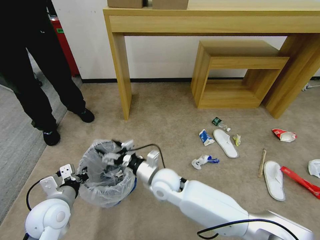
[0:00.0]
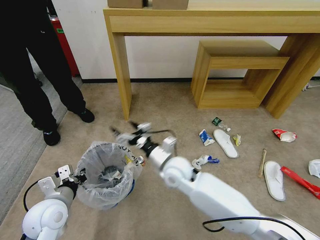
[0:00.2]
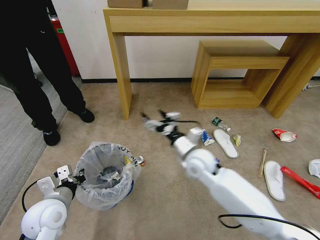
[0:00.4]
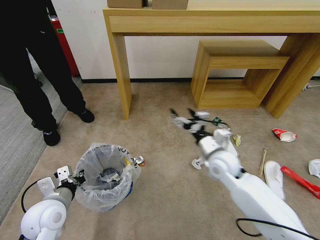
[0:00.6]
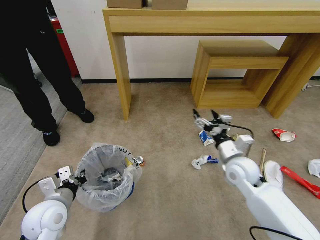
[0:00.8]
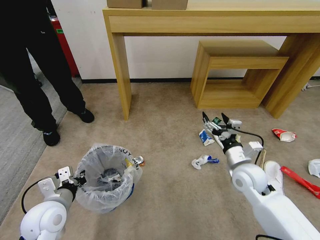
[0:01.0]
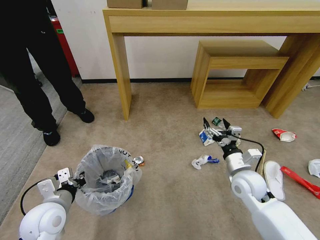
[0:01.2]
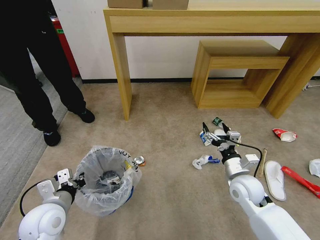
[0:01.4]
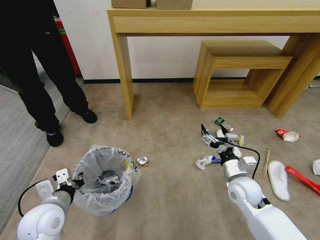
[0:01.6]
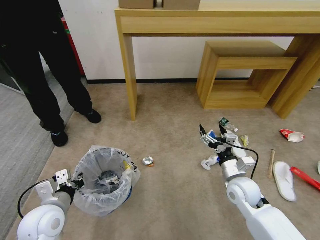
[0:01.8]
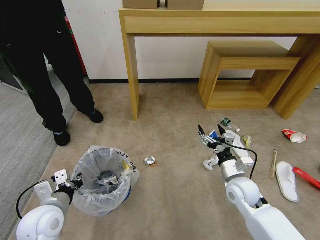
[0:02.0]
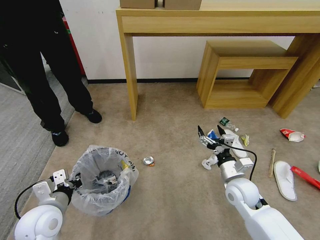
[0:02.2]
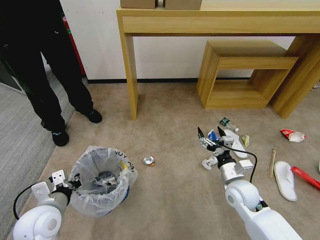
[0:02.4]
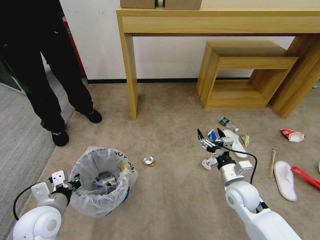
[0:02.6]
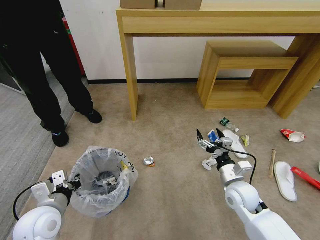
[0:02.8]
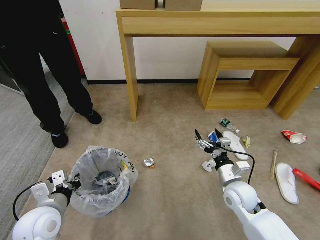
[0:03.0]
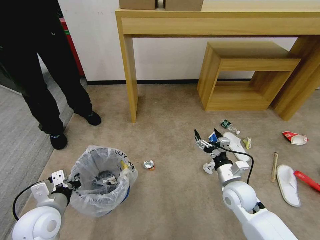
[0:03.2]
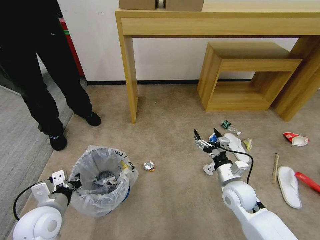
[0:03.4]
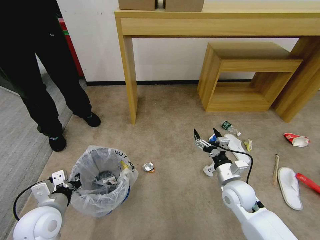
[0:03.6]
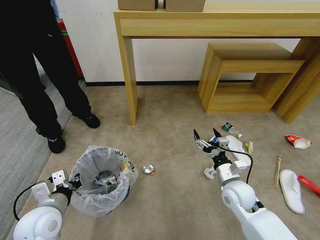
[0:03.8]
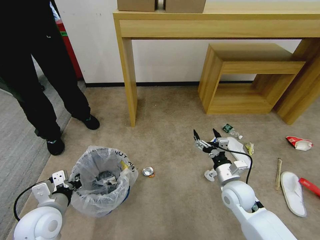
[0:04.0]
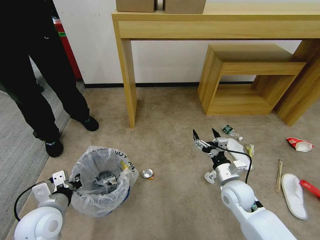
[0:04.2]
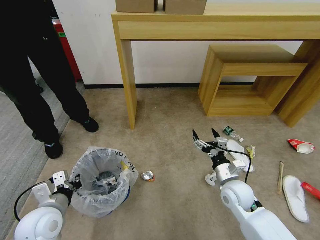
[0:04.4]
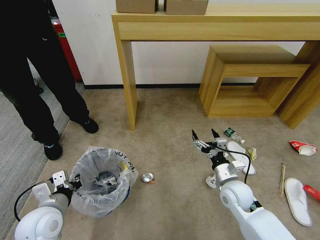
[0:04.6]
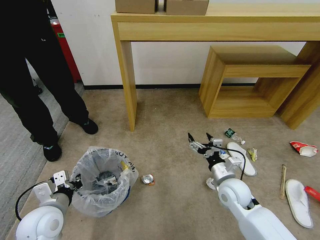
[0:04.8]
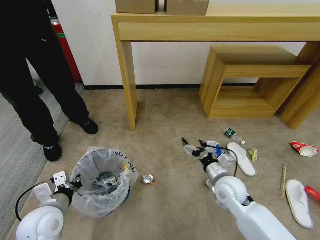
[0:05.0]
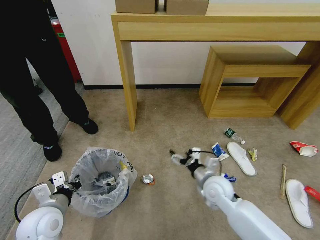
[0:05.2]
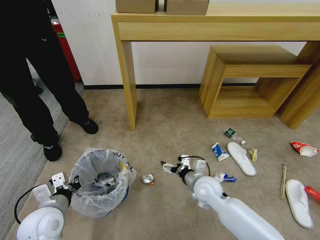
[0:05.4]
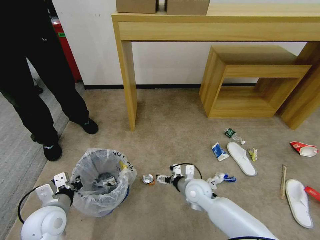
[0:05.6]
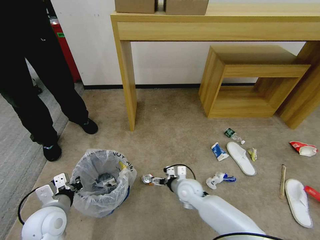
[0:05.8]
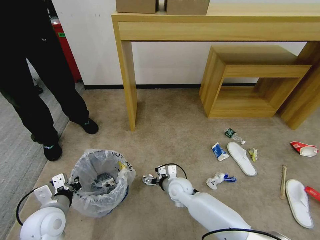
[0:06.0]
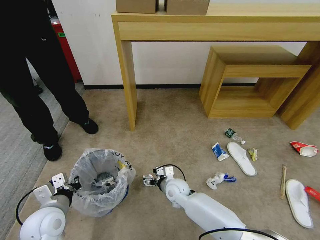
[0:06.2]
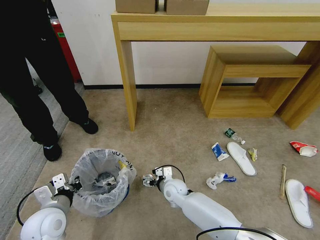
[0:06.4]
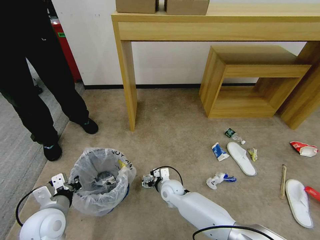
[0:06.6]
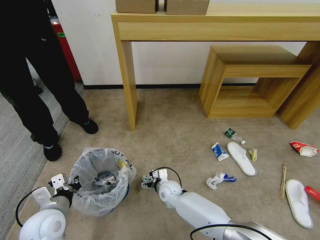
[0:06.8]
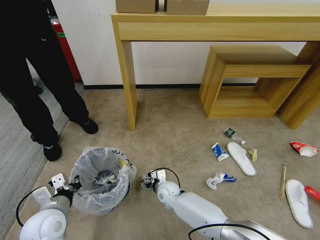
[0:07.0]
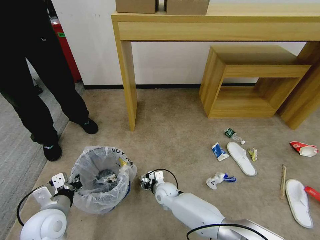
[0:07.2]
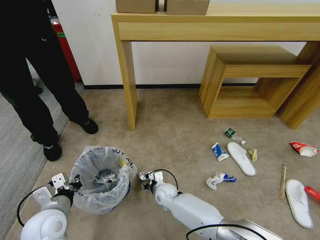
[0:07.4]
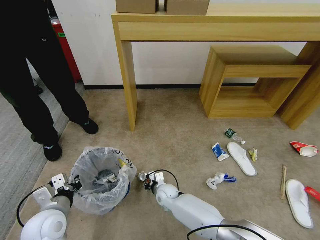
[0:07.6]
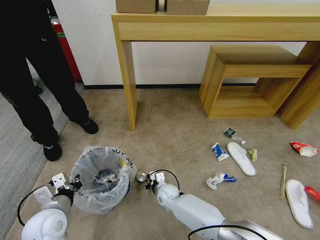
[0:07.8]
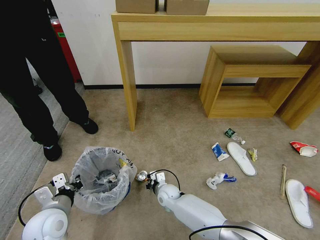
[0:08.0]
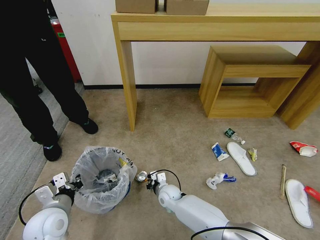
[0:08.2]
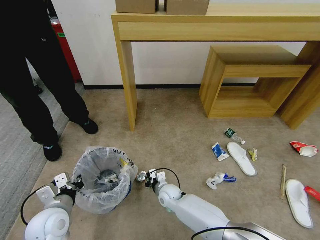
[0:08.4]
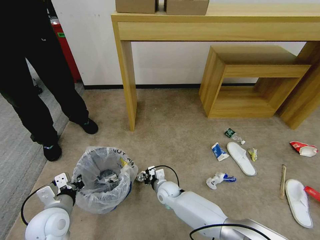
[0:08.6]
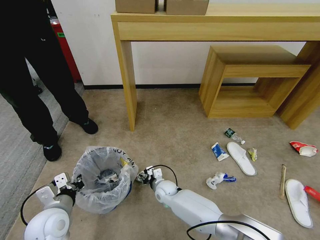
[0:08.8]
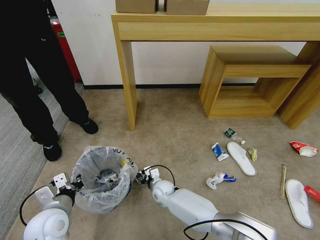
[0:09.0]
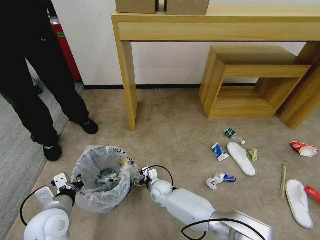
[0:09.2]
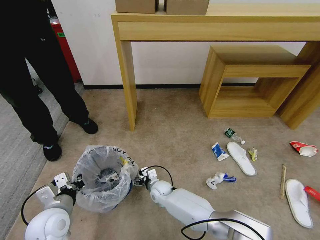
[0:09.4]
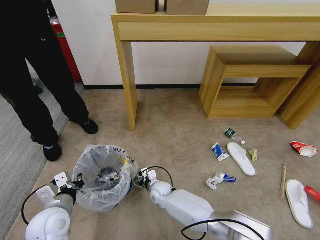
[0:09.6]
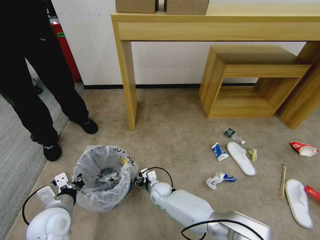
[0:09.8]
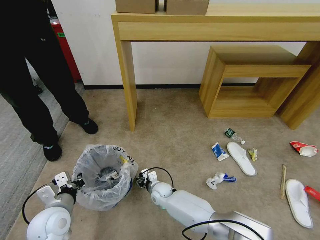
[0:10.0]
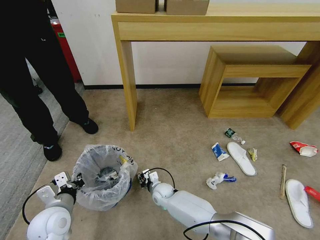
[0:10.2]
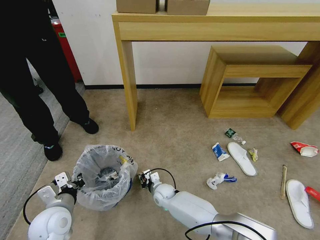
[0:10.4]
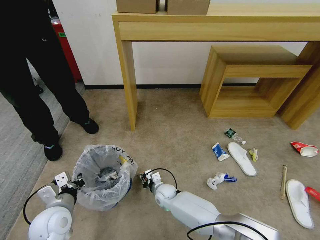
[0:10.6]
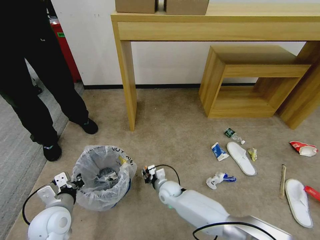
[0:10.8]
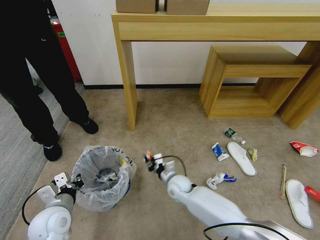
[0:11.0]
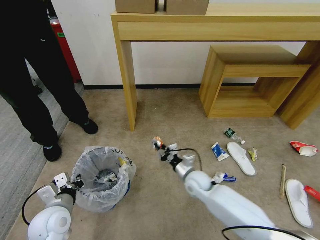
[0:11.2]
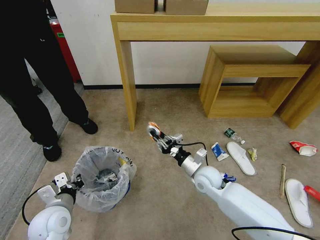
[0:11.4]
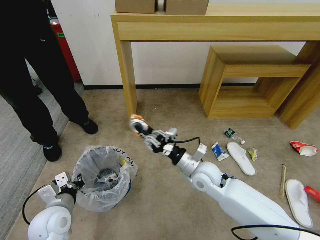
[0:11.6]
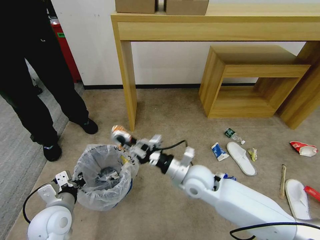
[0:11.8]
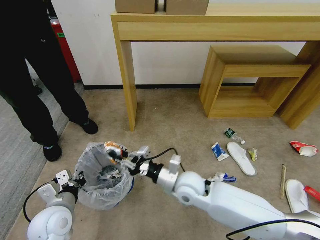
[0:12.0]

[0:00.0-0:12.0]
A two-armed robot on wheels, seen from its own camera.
Task of the whole recording: Pick up the trash bin and place the garbage on the floor into it.
0:00.0 to 0:01.6: The right gripper goes roughly 25 cm to the right.
0:01.6 to 0:03.0: There are only small adjustments of the grippers.
0:04.4 to 0:06.0: The right gripper shifts some 20 cm to the left and downward.
0:06.0 to 0:07.6: The right gripper goes some 10 cm downward and to the left, and closes up.
0:07.6 to 0:09.0: The right gripper opens.
0:09.0 to 0:10.4: The right gripper closes up.
0:10.4 to 0:12.0: The right gripper travels upward by roughly 20 cm.

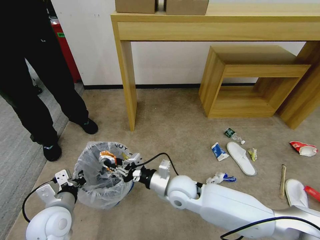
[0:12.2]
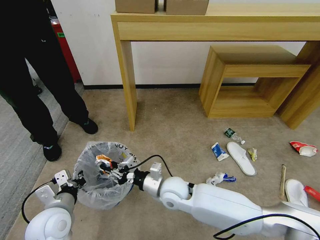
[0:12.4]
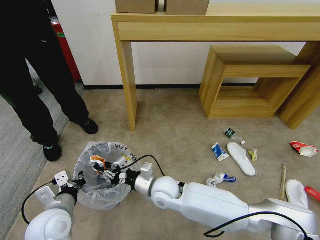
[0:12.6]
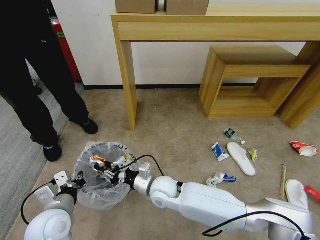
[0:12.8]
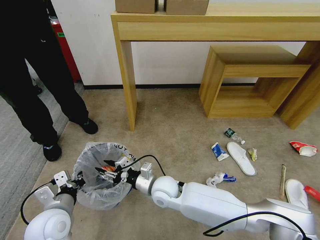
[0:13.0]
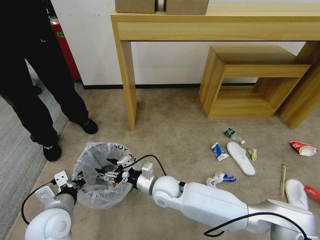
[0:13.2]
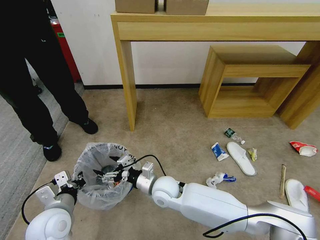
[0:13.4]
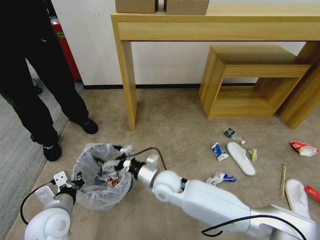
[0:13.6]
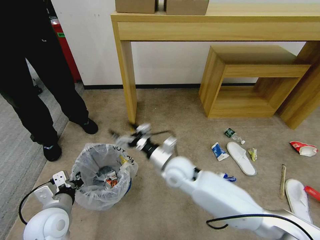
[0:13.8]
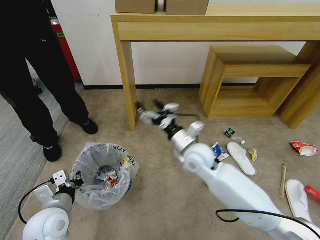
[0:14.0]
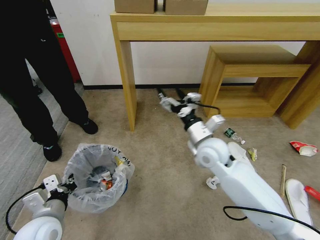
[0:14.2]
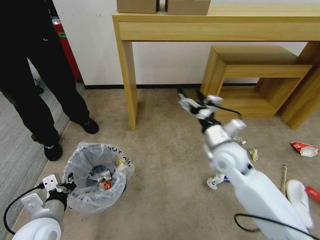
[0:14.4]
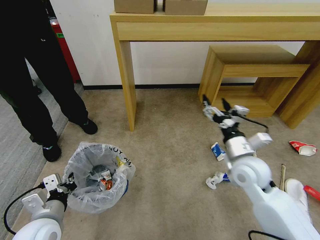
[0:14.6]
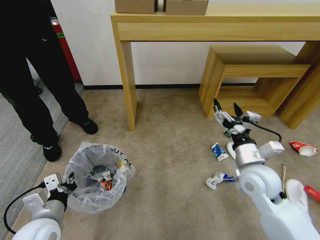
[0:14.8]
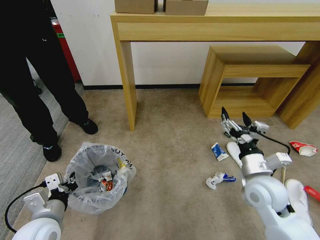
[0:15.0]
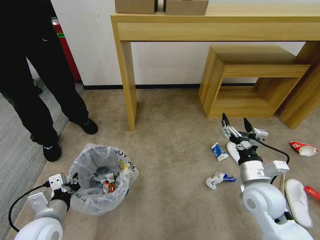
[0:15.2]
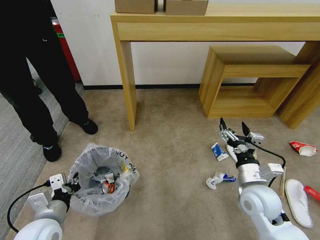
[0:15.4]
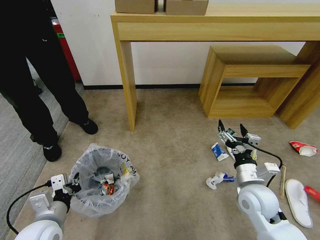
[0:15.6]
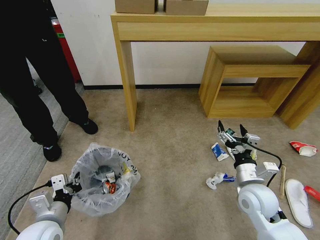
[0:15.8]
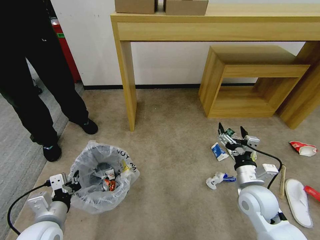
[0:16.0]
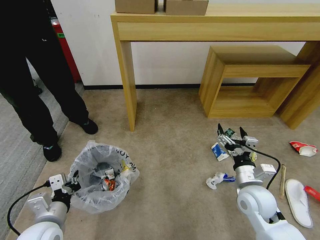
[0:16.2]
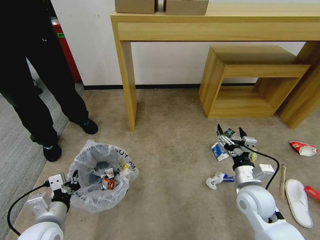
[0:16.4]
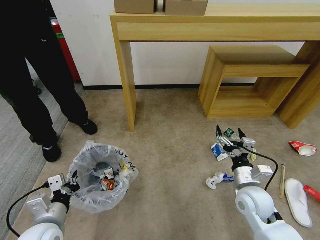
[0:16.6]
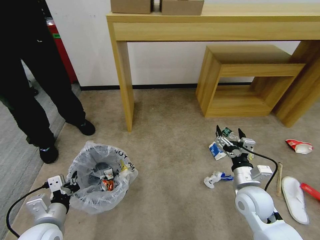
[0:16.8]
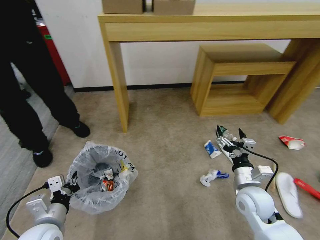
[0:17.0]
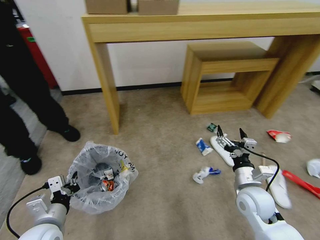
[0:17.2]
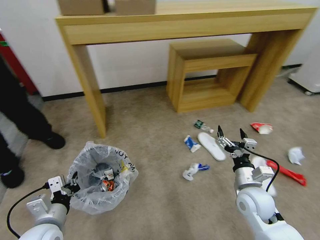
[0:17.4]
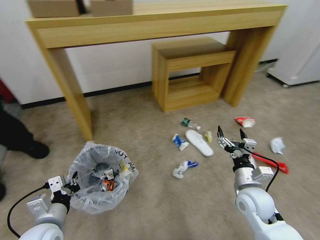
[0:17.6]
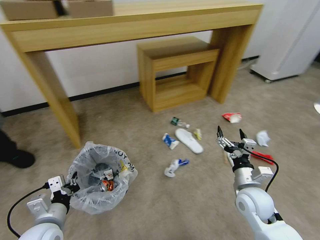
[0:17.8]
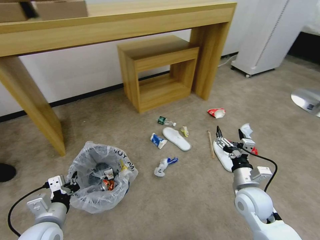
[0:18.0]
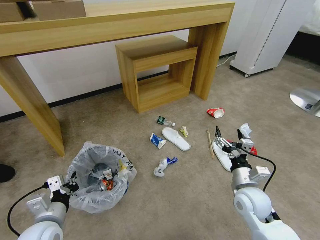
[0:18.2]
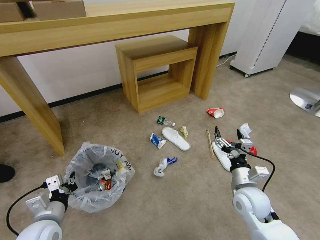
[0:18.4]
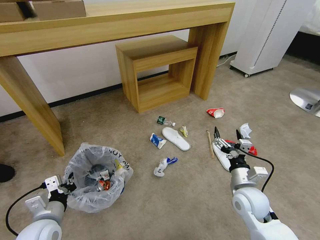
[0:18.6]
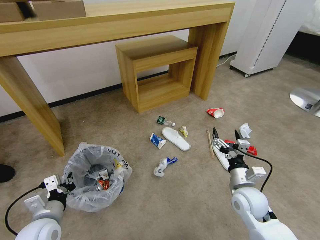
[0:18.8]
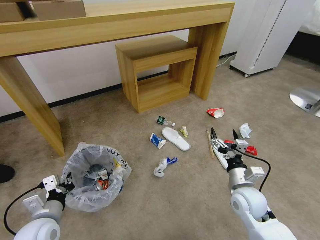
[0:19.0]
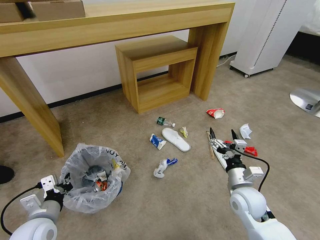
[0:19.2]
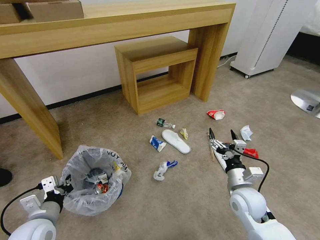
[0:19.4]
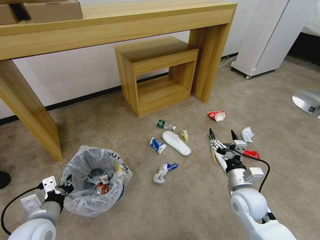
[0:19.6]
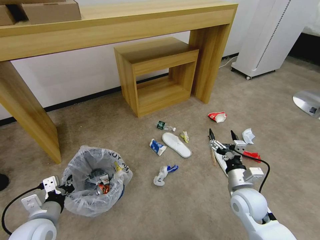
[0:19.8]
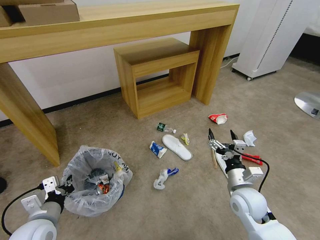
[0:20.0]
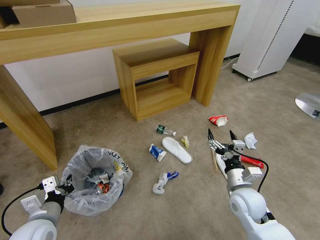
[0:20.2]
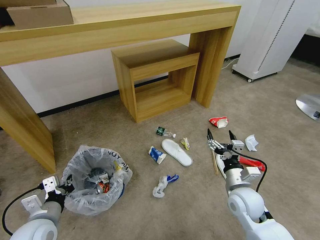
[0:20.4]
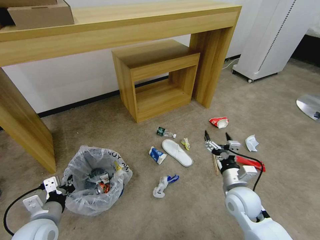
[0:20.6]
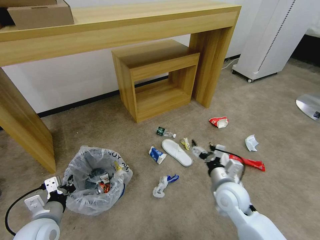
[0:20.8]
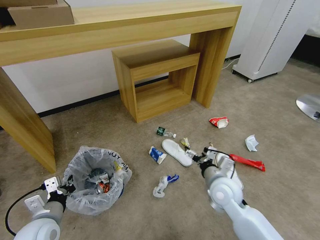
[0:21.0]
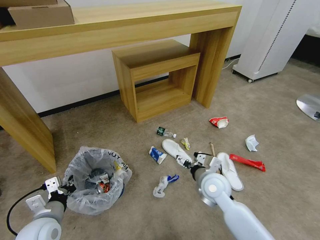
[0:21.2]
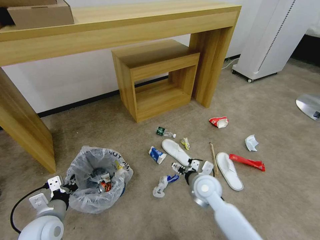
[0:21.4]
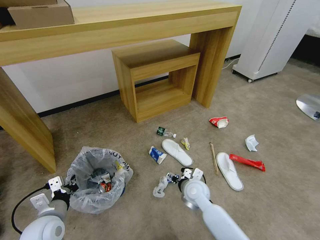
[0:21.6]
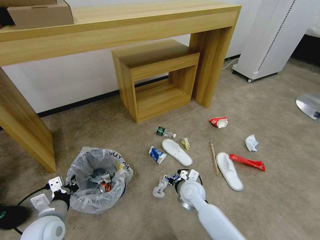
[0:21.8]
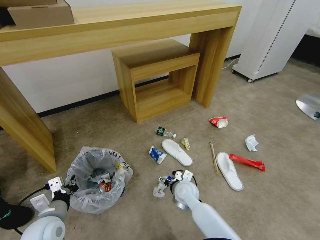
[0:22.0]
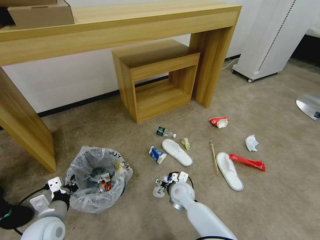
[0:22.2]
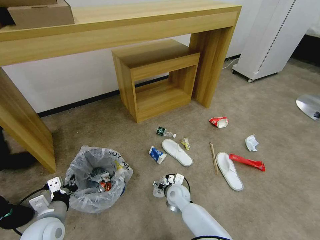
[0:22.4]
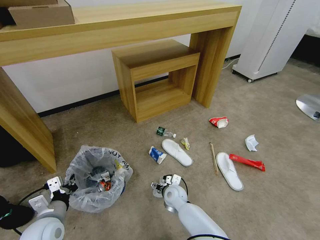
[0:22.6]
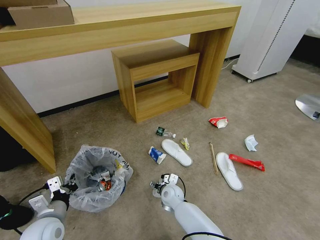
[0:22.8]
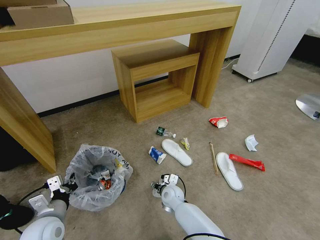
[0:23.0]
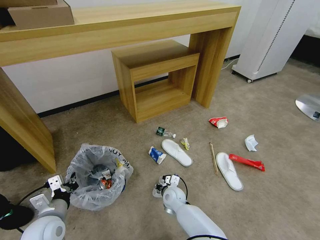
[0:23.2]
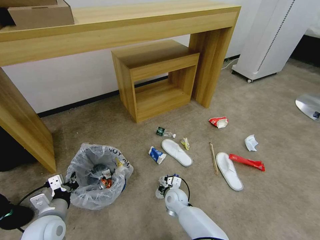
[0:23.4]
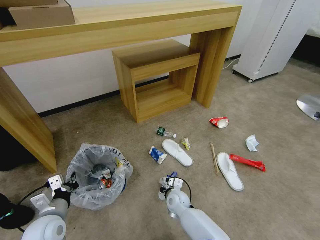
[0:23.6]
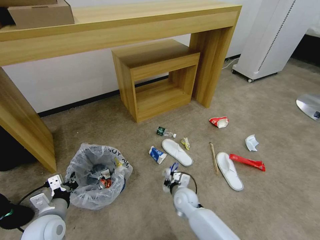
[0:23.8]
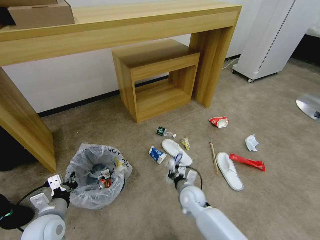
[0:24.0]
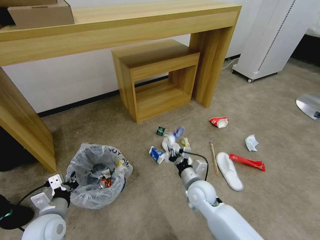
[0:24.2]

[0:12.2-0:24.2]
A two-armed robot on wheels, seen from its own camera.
Task of the whole recording: Pick up the trash bin and place the garbage on the floor into it.
0:12.2 to 0:13.8: The right gripper moves roughly 5 cm, and opens up.
0:13.8 to 0:15.2: The right gripper shifts roughly 25 cm to the right and backward.
0:15.2 to 0:16.6: The right gripper moves some 5 cm.
0:19.8 to 0:21.2: The right gripper heads to the left, covering approximately 10 cm.
0:21.2 to 0:22.6: The right gripper moves downward and to the left, approximately 20 cm.
0:22.6 to 0:24.2: The right gripper goes some 15 cm upward and to the right, and closes.
